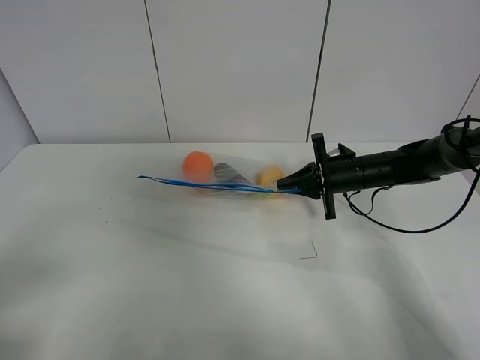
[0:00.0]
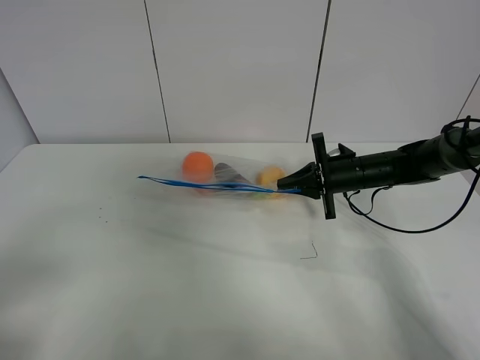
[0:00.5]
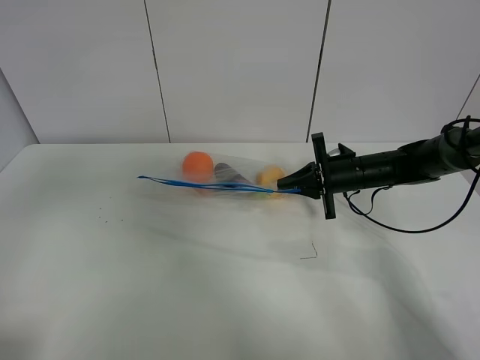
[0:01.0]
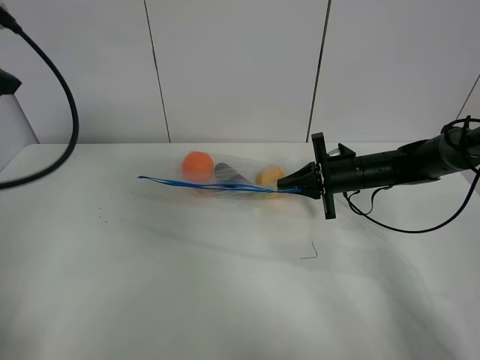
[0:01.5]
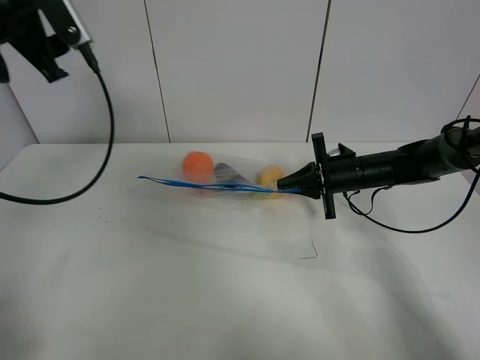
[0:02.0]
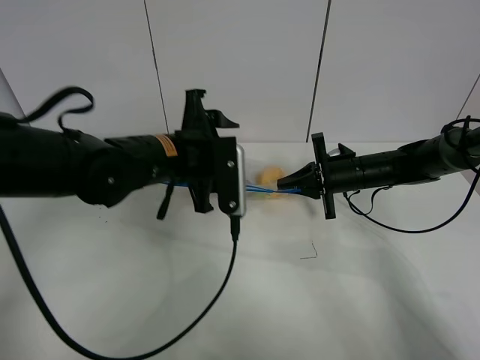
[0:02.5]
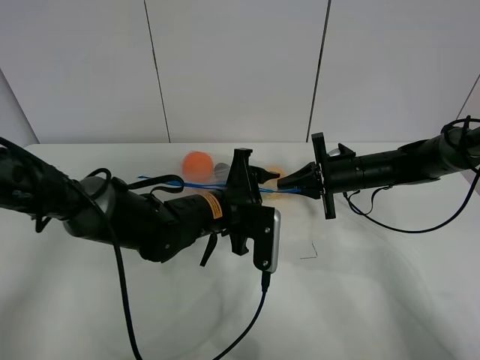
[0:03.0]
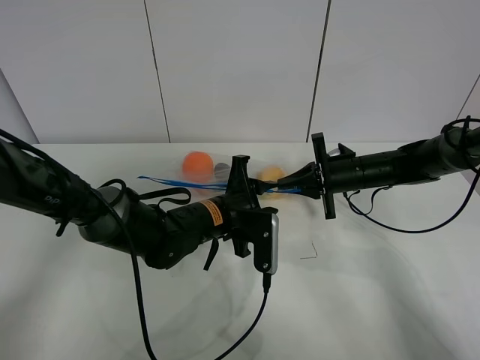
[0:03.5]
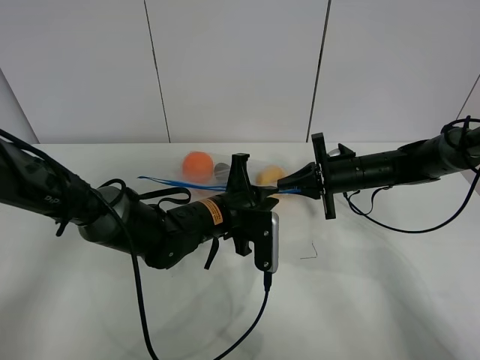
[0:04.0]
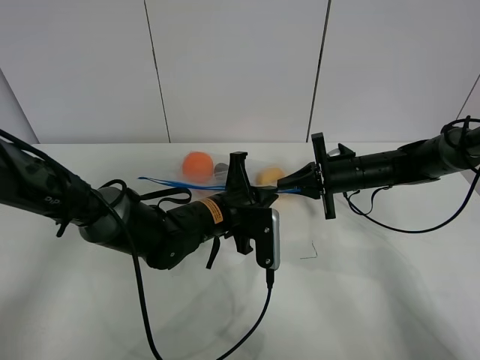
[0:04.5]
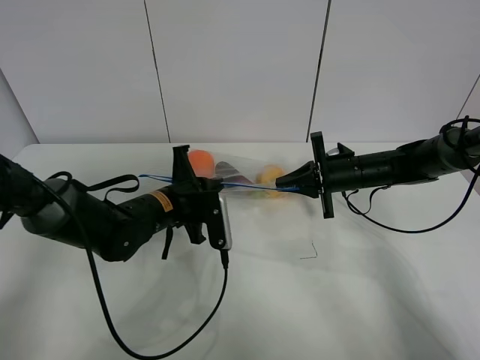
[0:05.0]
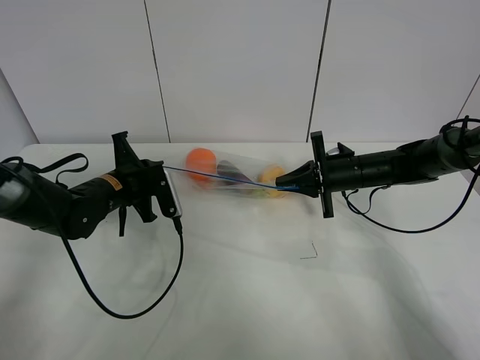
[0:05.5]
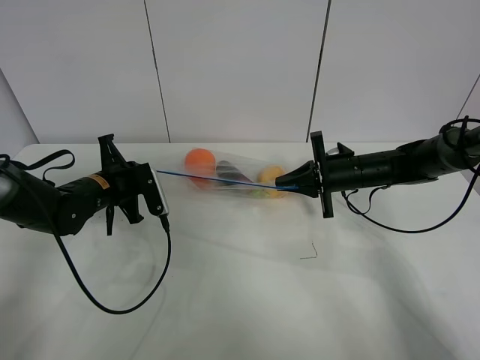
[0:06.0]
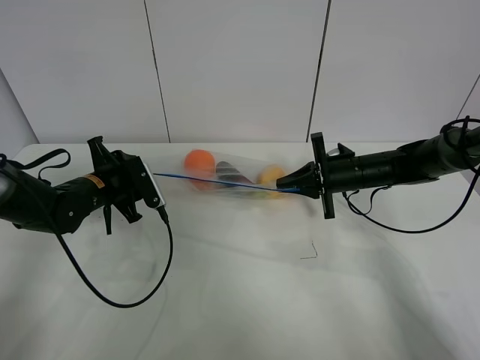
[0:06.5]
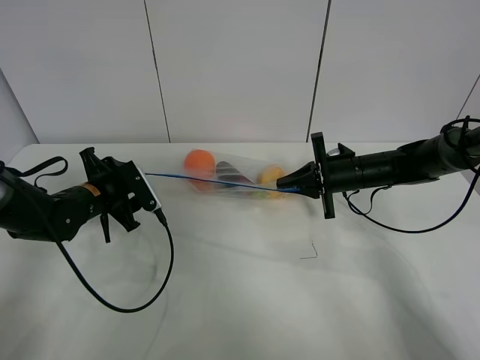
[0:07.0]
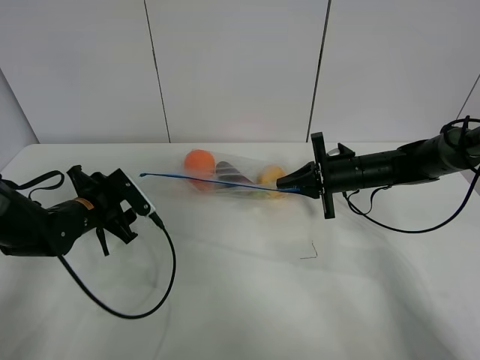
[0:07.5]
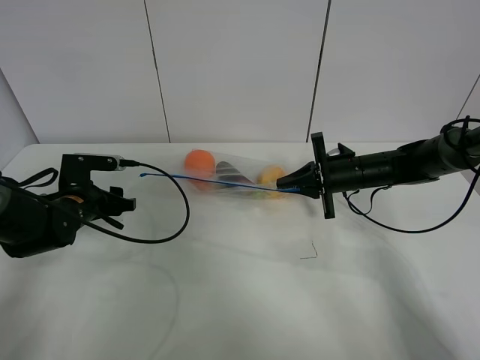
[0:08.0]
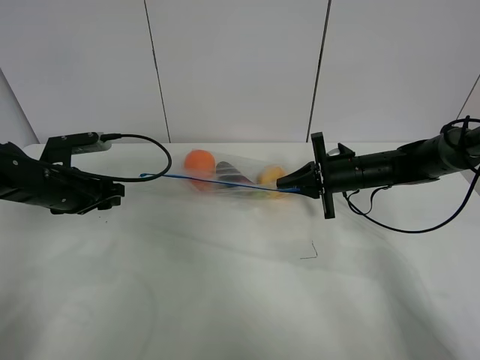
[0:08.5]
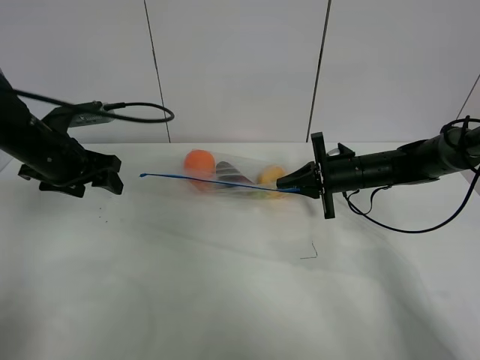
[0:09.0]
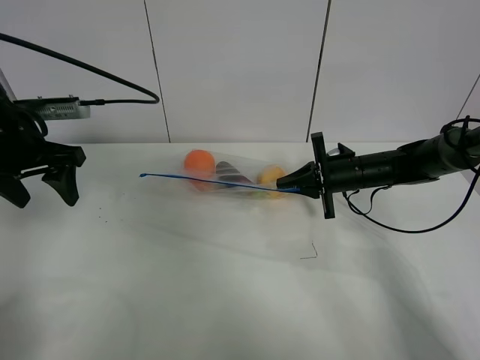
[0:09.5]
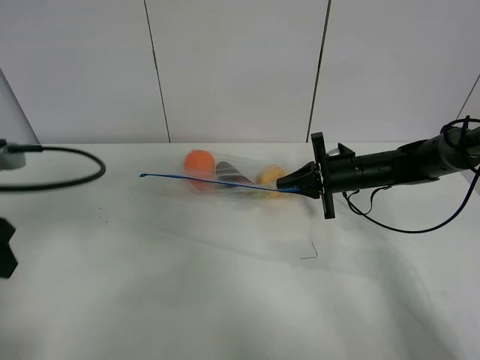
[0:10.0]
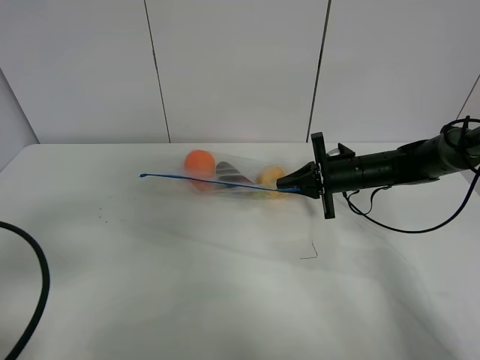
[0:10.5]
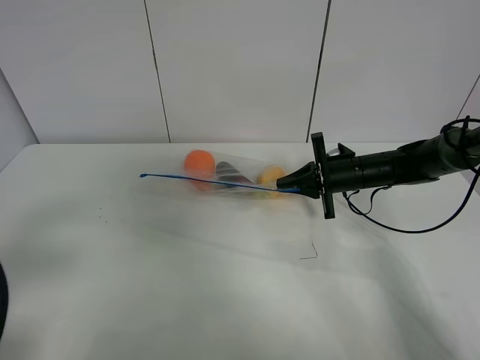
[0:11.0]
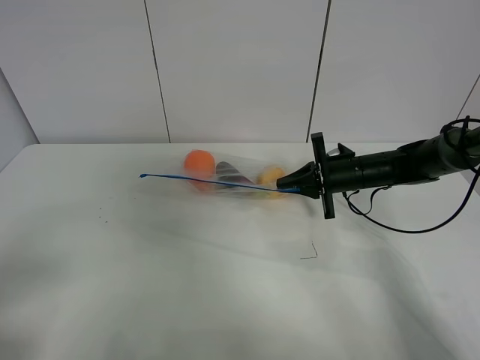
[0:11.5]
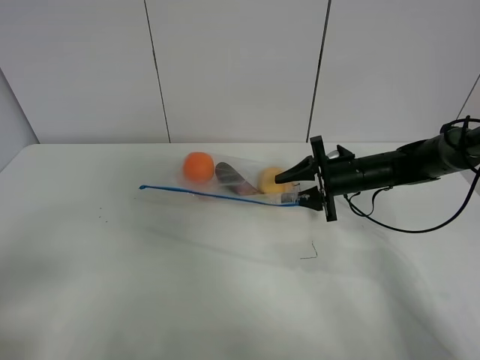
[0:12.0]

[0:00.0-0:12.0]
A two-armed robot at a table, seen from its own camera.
Step, 0:00.0 to 0:06.5: Pull the fruit bag with left gripper.
0:00.0 to 0:02.0: The left gripper shifts some 35 cm forward.
0:02.0 to 0:04.0: The left gripper is displaced downward and to the right by about 35 cm, and closes.
0:04.0 to 0:06.0: The left gripper travels to the left by about 20 cm.
0:06.0 to 0:08.0: The left gripper changes place by roughly 5 cm, and opens up.
0:08.0 to 0:10.0: The left gripper moves upward and backward, approximately 25 cm.
0:10.0 to 0:12.0: The left gripper is displaced backward by some 15 cm; the right gripper opens up.

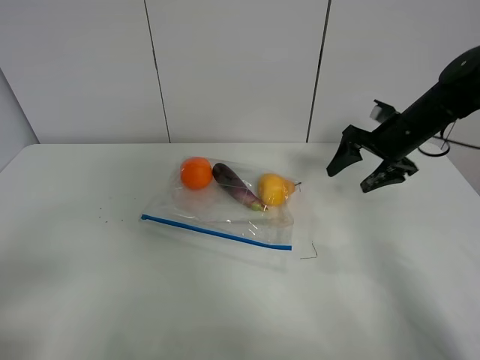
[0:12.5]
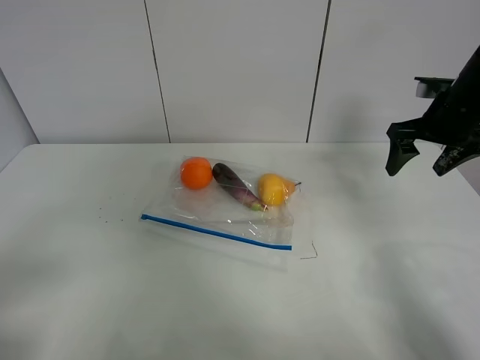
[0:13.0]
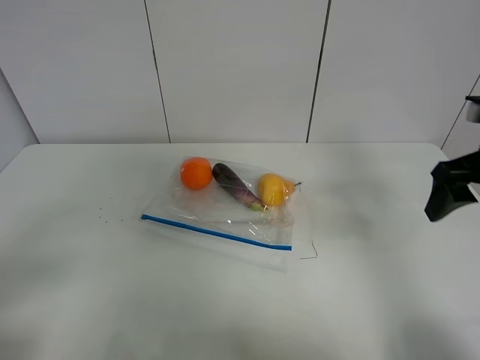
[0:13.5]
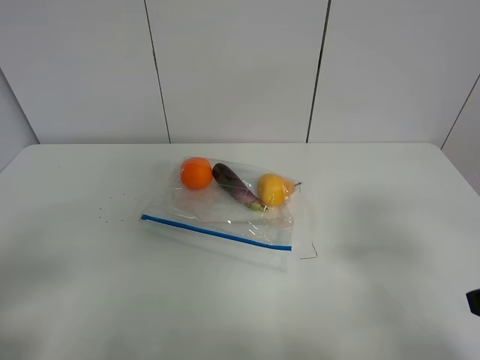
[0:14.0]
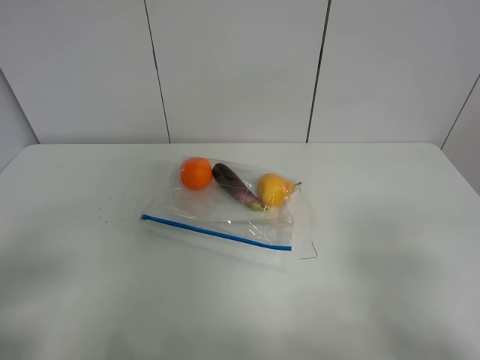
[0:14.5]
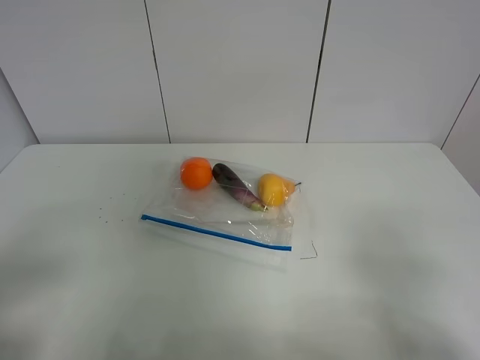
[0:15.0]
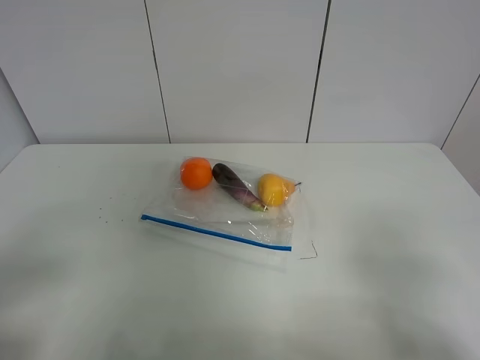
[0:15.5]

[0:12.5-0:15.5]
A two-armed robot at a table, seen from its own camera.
0:12.5 to 0:14.0: The right gripper travels backward by about 30 cm.

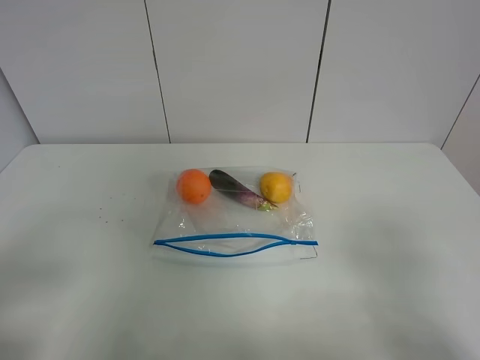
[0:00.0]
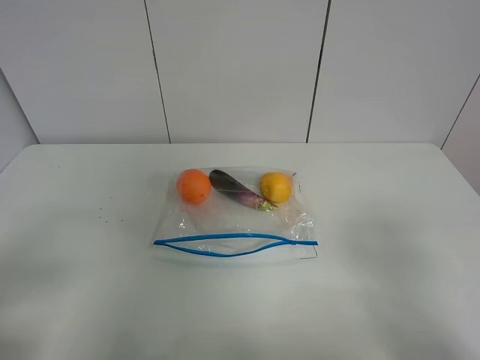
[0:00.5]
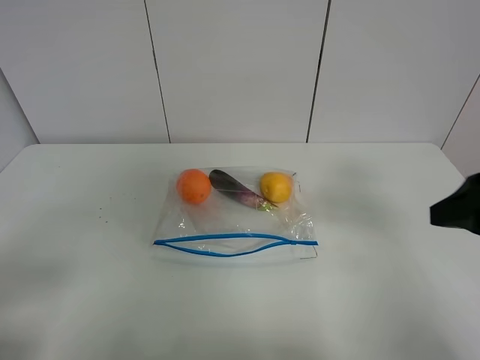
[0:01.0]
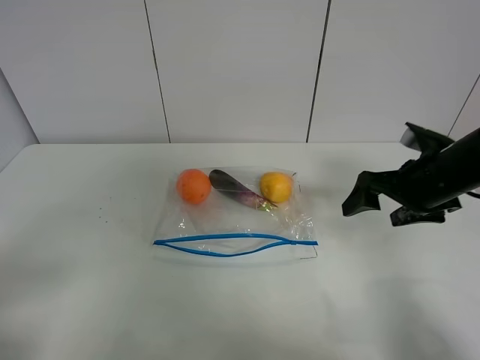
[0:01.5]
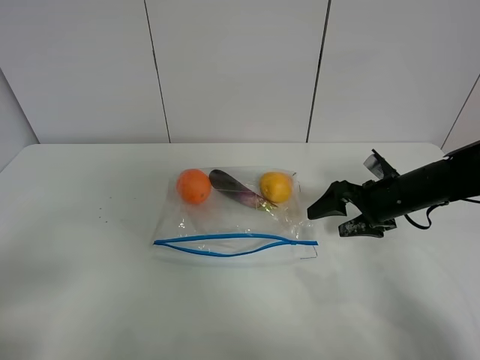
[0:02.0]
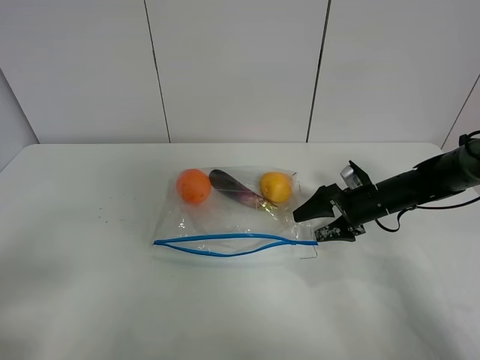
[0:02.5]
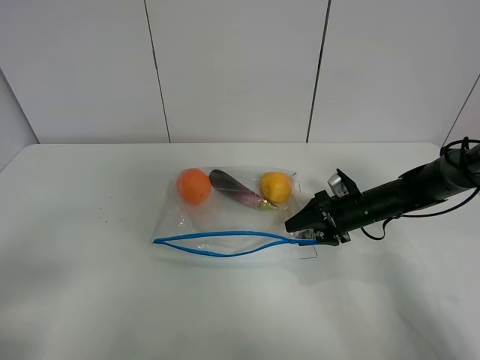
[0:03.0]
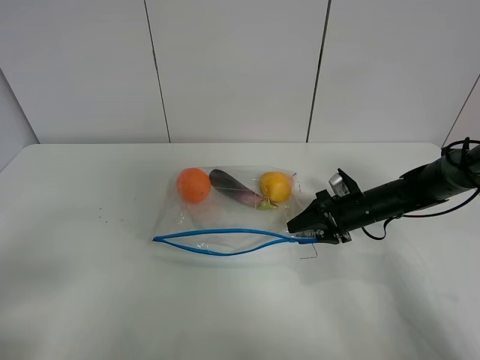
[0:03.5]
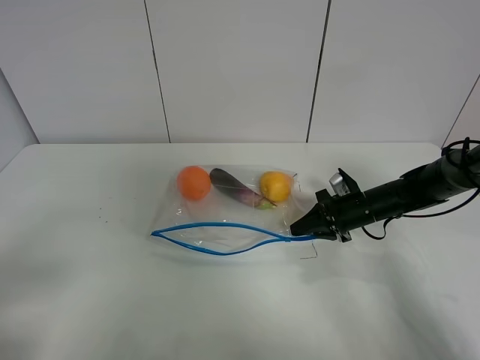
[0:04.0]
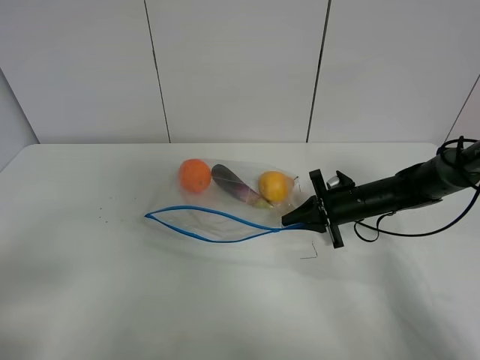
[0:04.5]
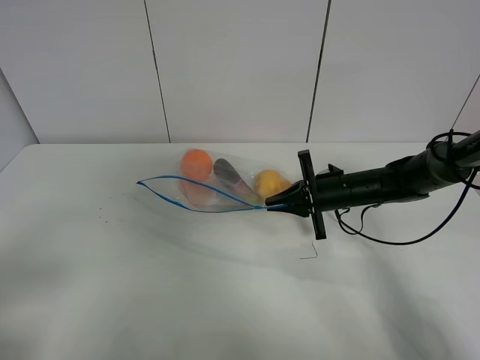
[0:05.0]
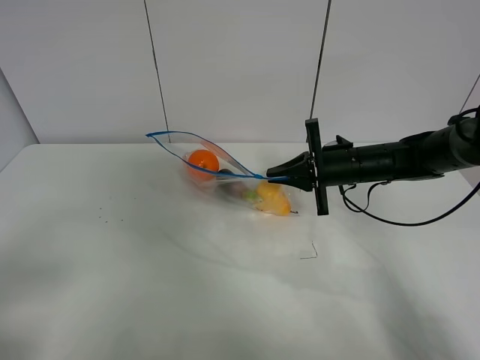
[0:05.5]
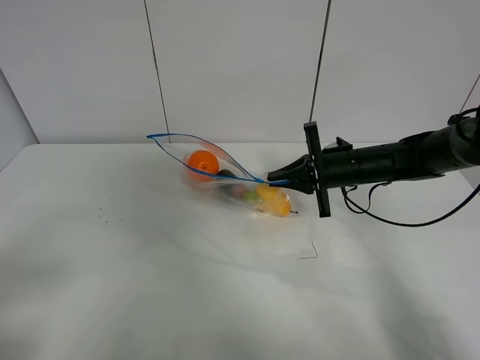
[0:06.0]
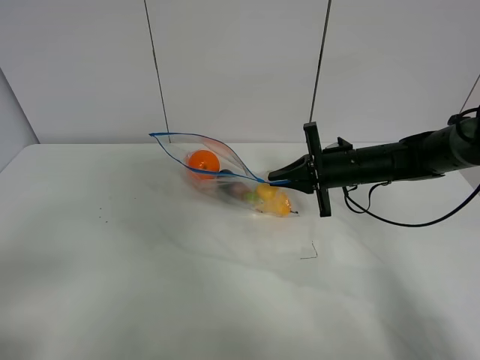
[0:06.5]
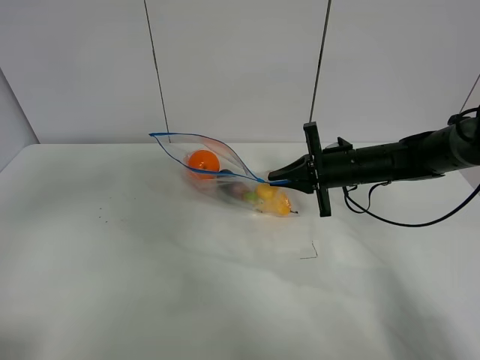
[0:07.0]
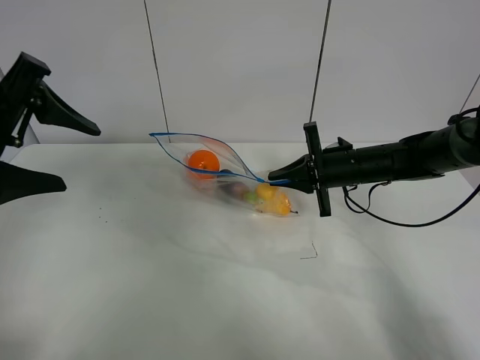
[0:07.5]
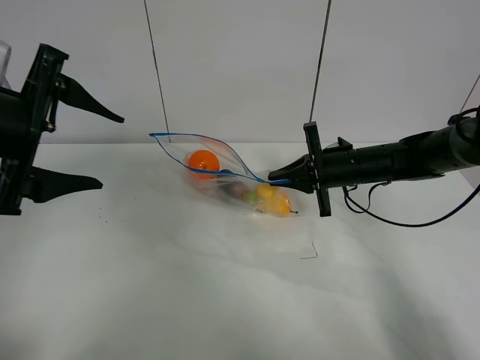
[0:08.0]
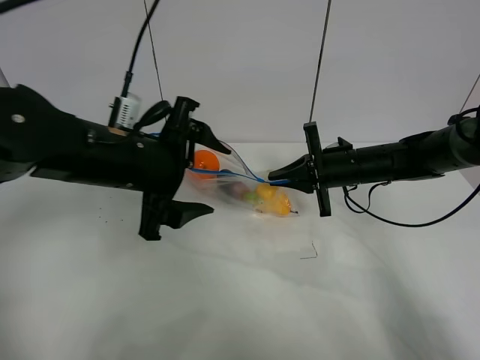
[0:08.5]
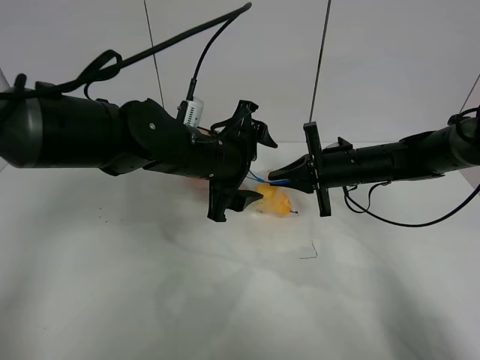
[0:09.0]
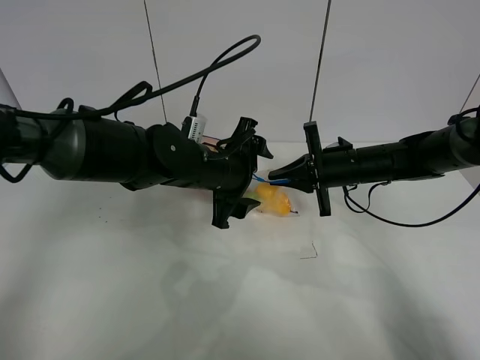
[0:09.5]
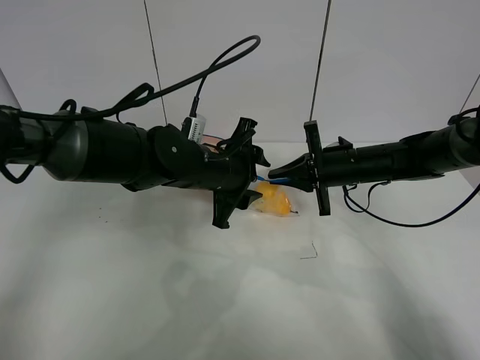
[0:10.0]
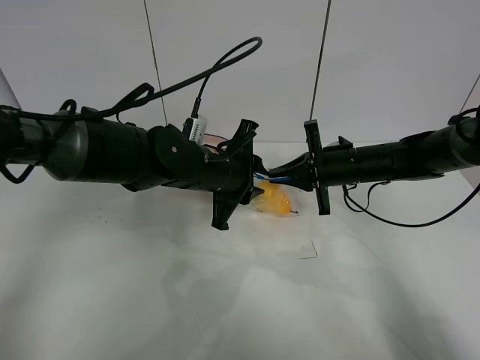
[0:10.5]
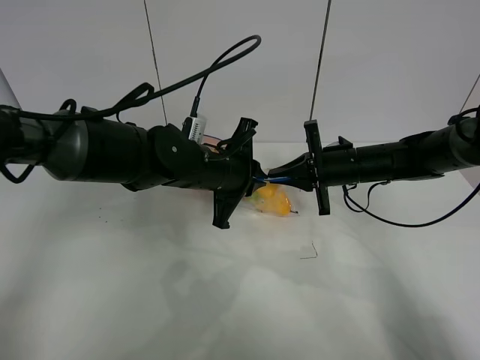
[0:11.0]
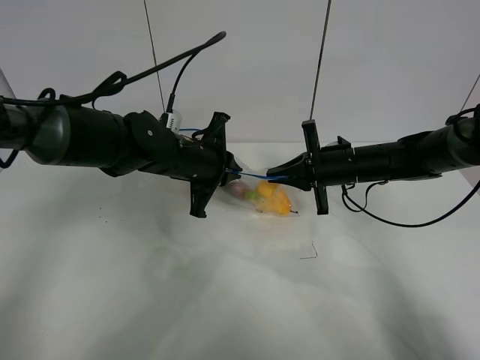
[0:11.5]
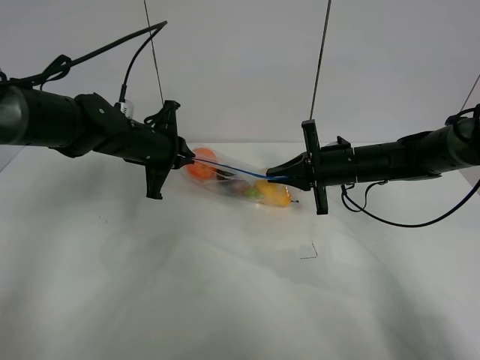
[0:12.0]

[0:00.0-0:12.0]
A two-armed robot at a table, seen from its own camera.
Step, 0:00.0 to 0:04.0: Grasp the fruit bag with right gripper.
Step, 0:04.5 to 0:05.5: Lift the fruit bag with your right gripper.
0:00.0 to 0:02.0: The right gripper heads forward and downward, covering about 35 cm.
0:02.0 to 0:04.0: The right gripper goes some 5 cm downward, and closes.
0:04.0 to 0:06.0: The right gripper shifts some 10 cm upward.
0:06.0 to 0:08.0: The left gripper goes about 20 cm forward.
0:08.0 to 0:10.0: The left gripper goes roughly 25 cm to the right, downward and forward.
0:10.0 to 0:12.0: The left gripper heads to the left and forward, covering roughly 15 cm, and closes its fingers.
